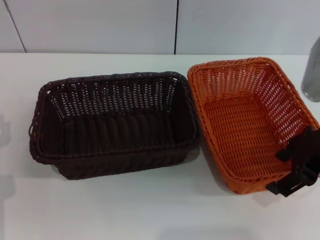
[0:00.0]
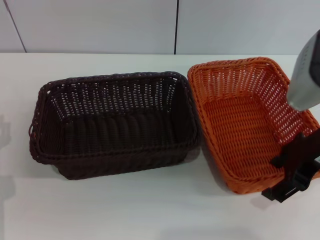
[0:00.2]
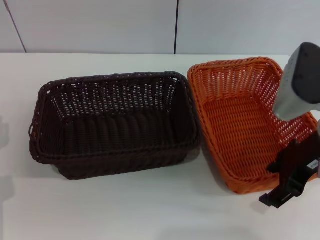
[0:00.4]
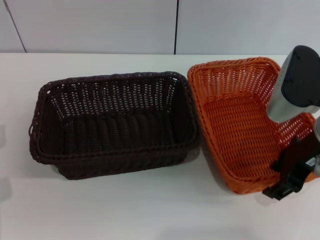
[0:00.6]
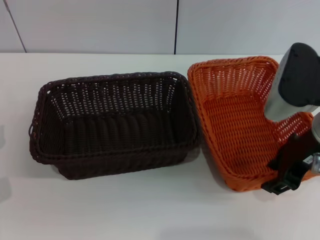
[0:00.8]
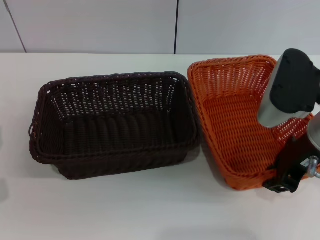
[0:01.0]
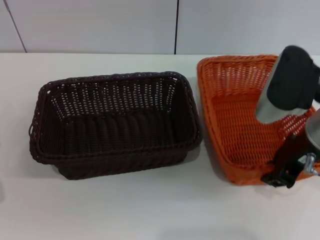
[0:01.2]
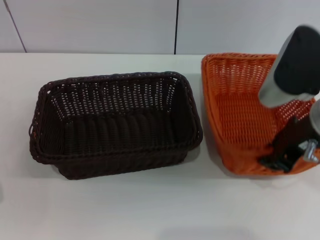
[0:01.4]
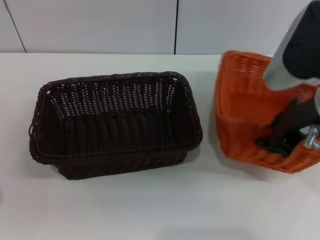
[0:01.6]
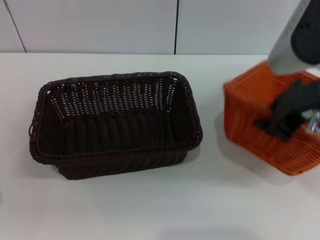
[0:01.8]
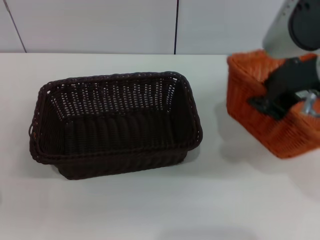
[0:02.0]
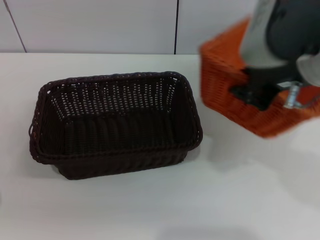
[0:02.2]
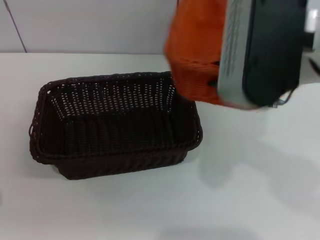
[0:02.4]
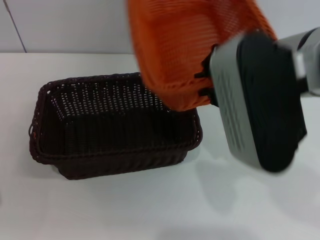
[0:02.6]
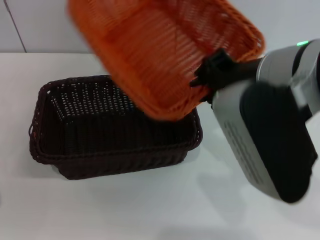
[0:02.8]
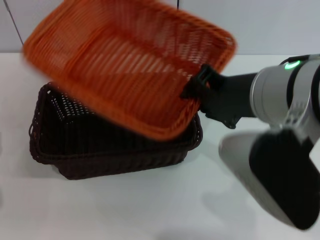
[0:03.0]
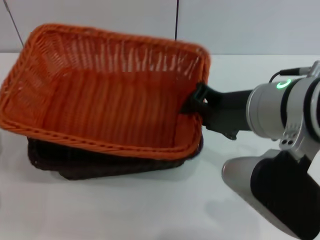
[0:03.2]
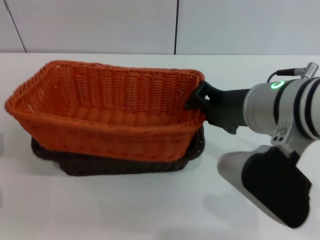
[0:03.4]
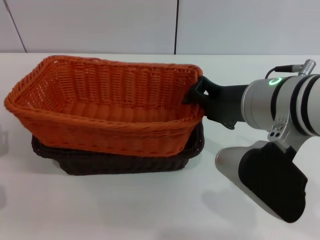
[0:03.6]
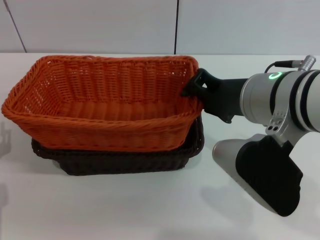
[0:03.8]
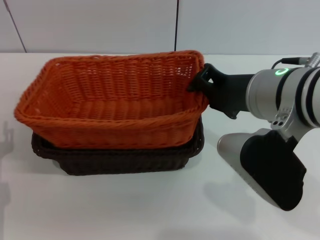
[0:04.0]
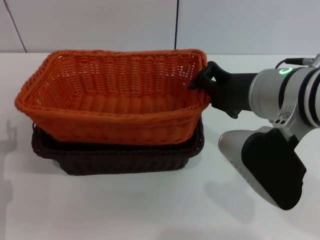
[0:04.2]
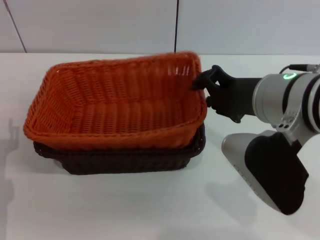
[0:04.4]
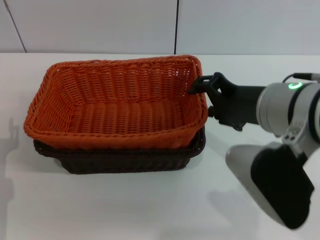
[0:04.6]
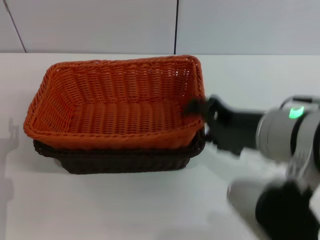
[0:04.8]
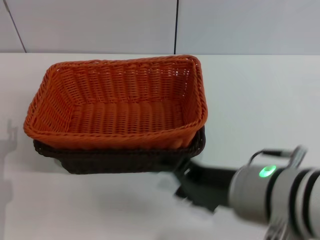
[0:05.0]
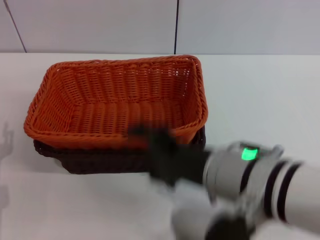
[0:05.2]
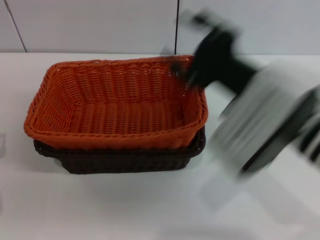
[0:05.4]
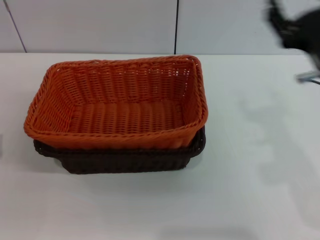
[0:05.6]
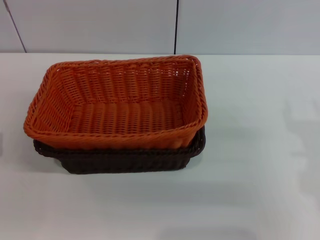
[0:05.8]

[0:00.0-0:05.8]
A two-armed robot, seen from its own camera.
Step, 0:02.0 to 0:04.4: Place the light basket on the dark basket with the right gripper.
0:00.0 to 0:01.4: The right gripper closes up.
0:01.4 to 0:02.8: The right gripper shifts some 10 cm to the left and upward.
0:02.8 to 0:04.4: The right gripper goes roughly 5 cm downward.
0:04.4 to 0:05.8: The right gripper is displaced to the right and downward by about 15 cm, and opens.
